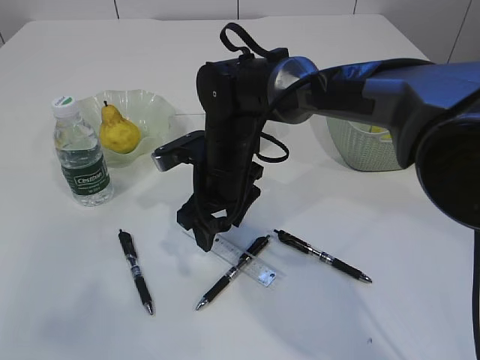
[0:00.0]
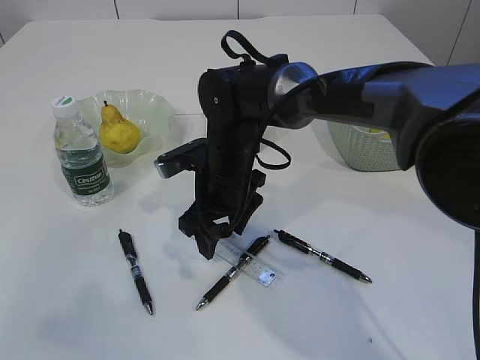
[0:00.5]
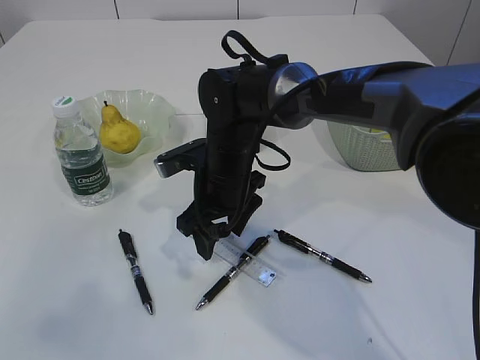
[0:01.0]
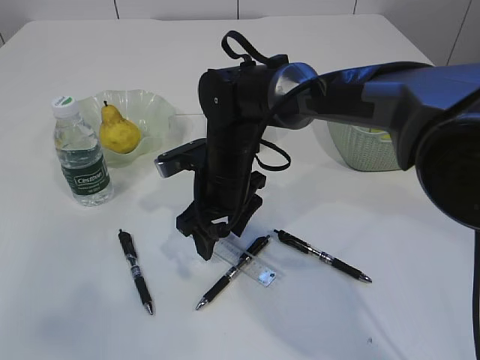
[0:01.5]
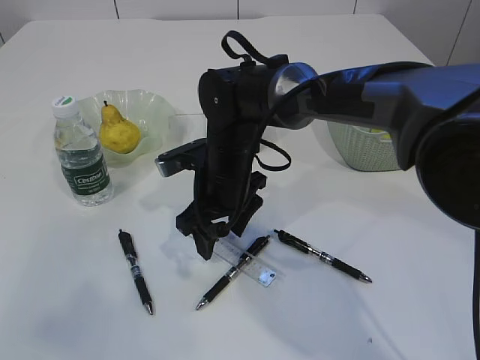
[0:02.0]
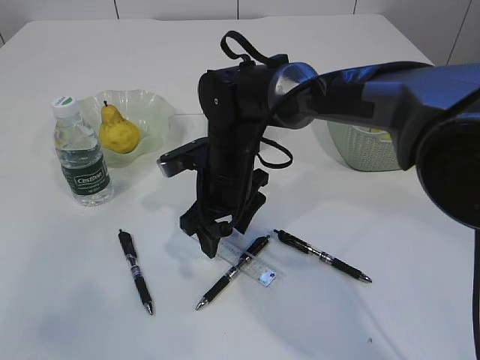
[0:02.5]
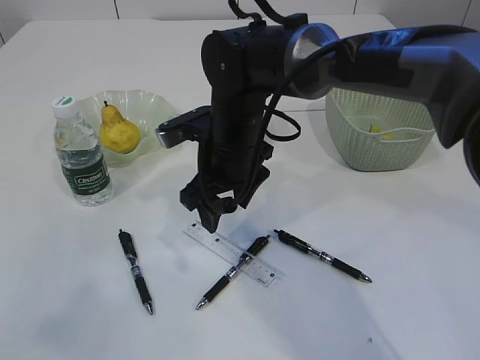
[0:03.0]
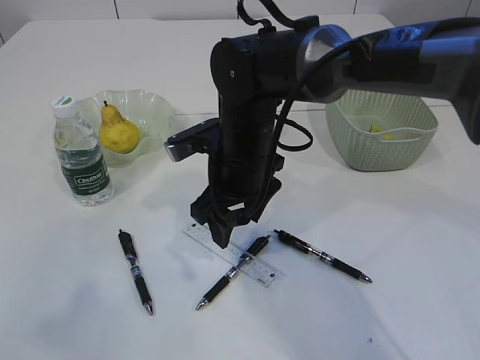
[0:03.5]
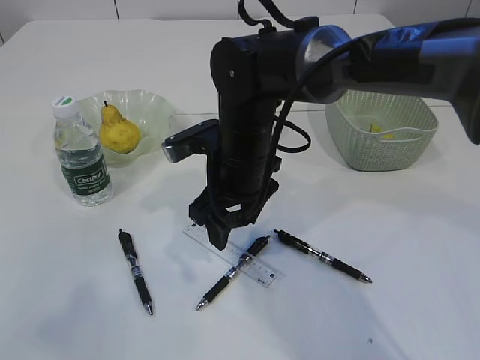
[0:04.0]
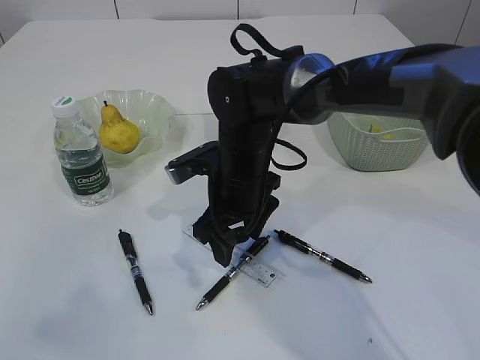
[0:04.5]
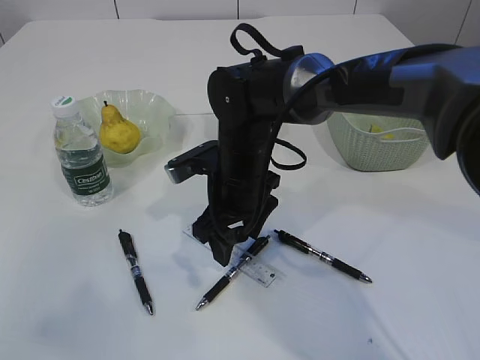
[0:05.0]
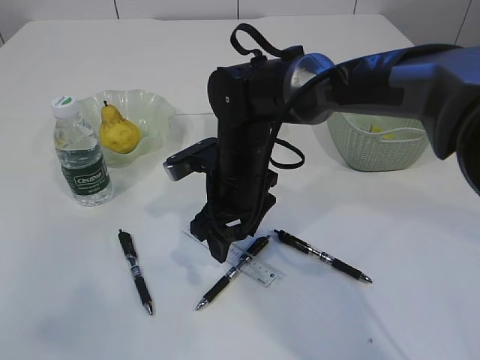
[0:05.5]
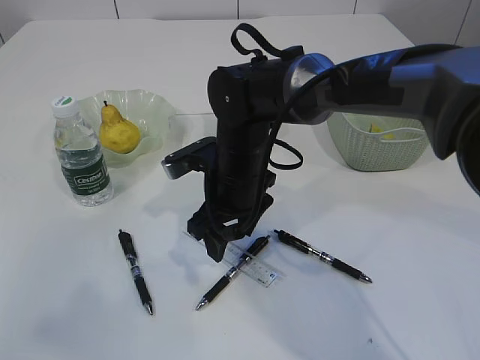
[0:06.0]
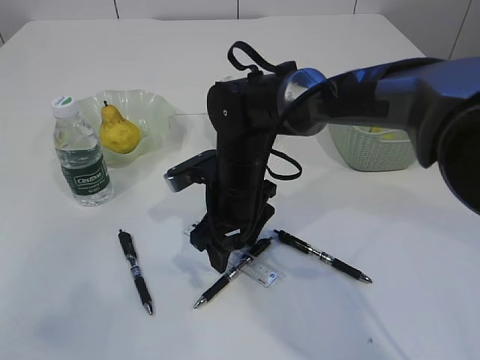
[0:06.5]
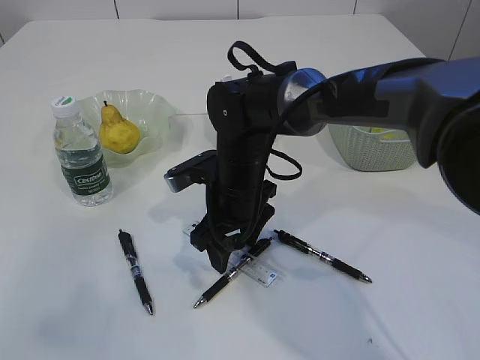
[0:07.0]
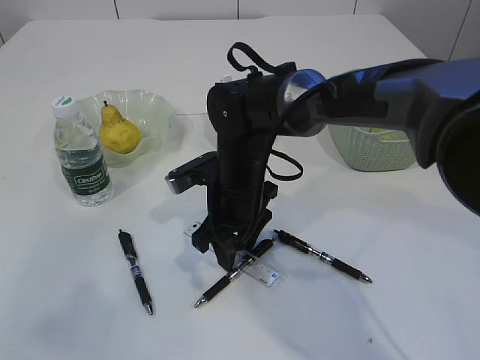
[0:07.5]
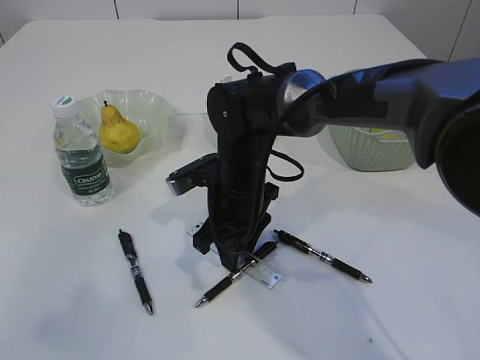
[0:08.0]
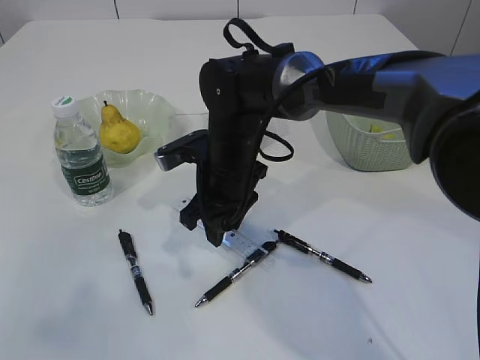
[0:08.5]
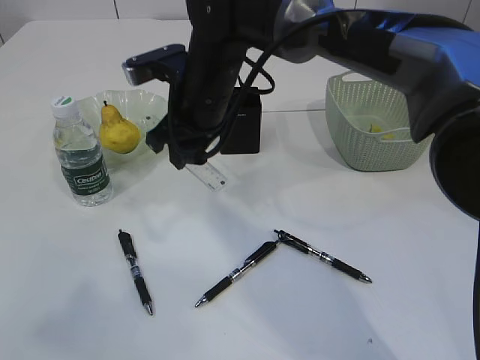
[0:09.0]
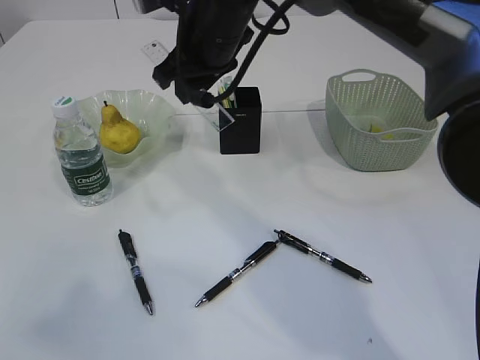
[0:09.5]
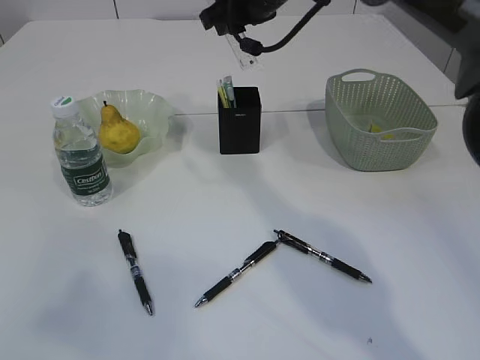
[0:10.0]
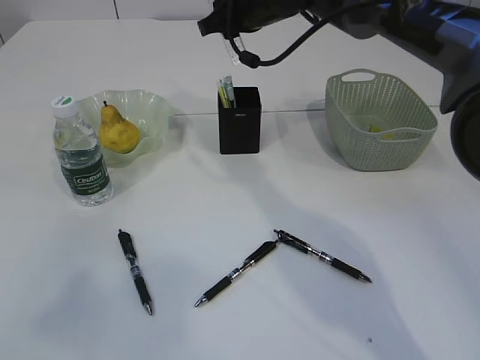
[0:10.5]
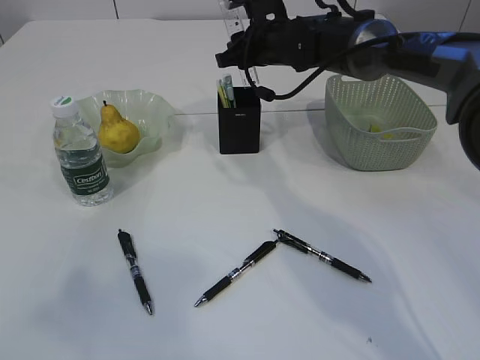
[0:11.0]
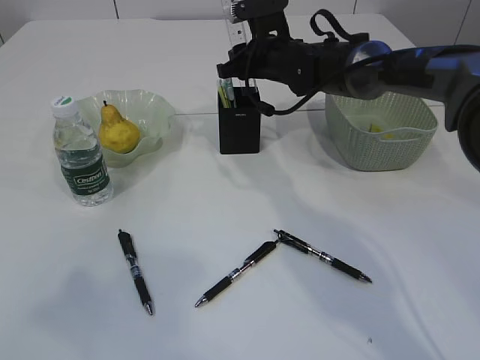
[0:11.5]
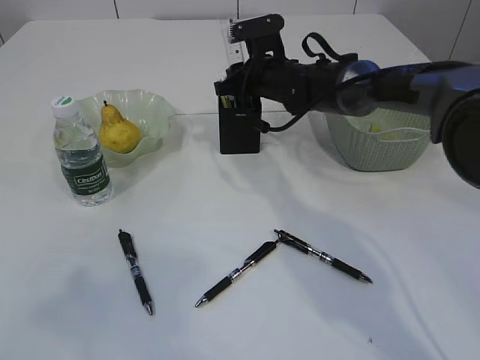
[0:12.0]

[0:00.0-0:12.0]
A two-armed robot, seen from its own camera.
Step, 0:00.0 to 0:08.5: pick up the ruler.
0:00.0 to 0:02.0: Both grippers stay about where they are.
0:04.0 to 0:06.0: The grippers stay close to where they were, moving slightly.
0:06.0 to 0:08.0: The right gripper closes up.
0:08.0 to 0:10.0: The right gripper travels upward and forward by approximately 20 cm.
0:10.0 to 0:12.0: The right gripper moves downward, approximately 15 cm.

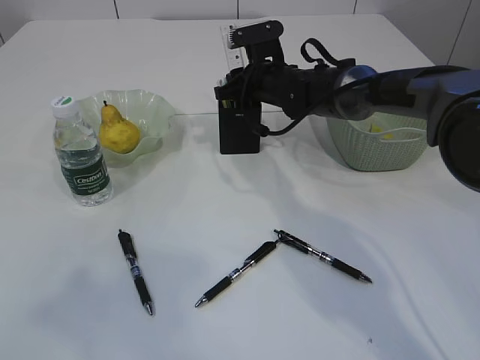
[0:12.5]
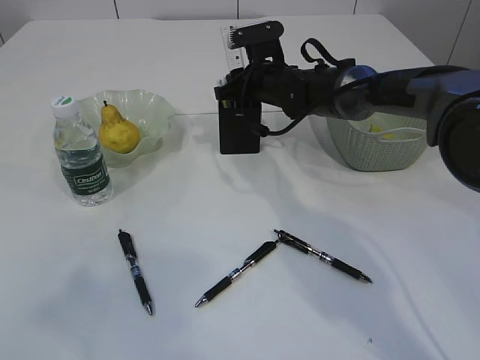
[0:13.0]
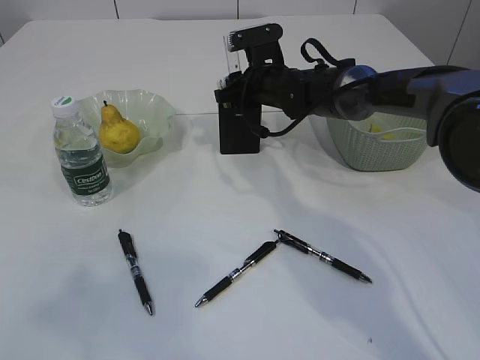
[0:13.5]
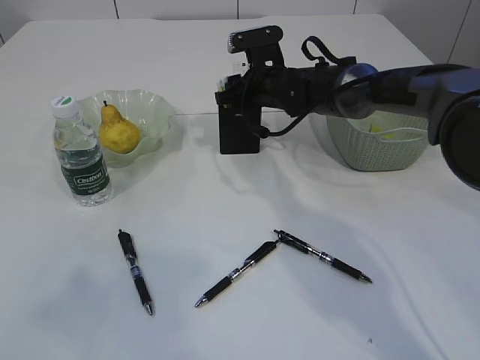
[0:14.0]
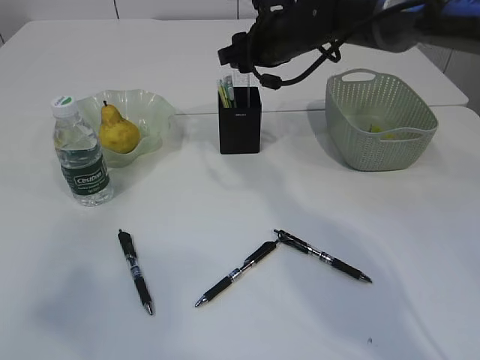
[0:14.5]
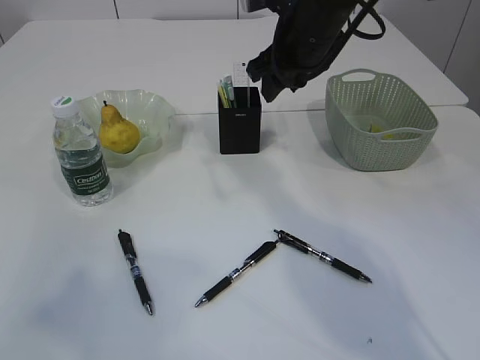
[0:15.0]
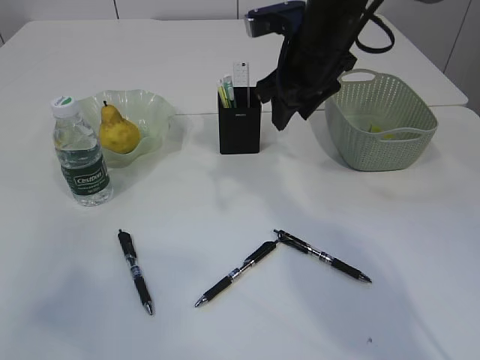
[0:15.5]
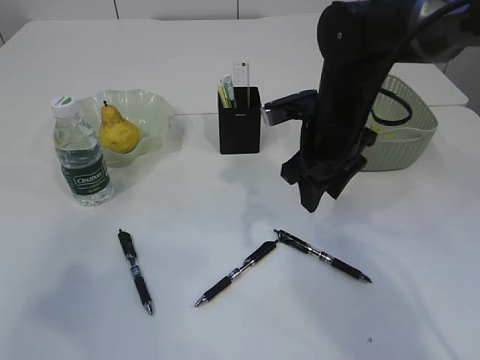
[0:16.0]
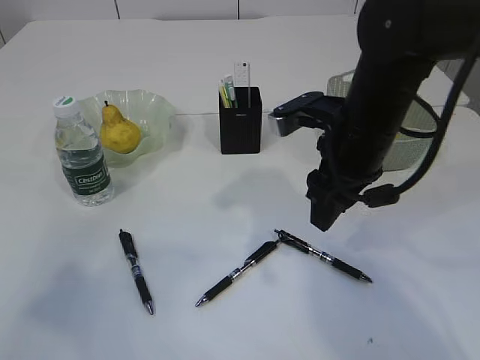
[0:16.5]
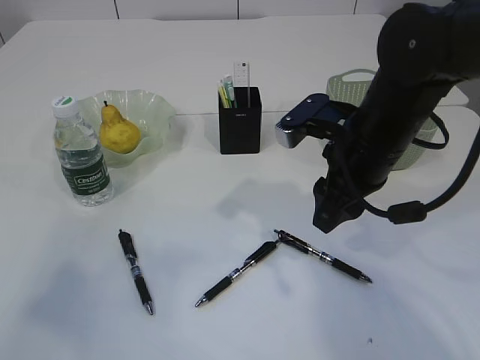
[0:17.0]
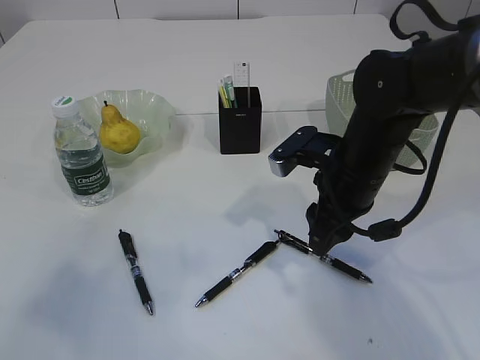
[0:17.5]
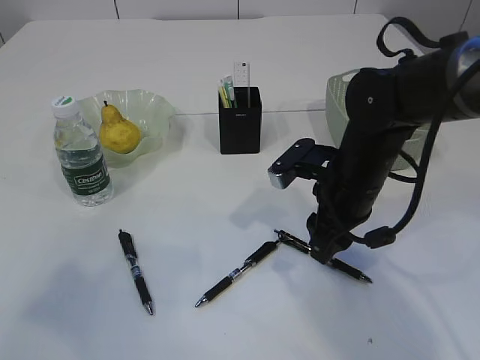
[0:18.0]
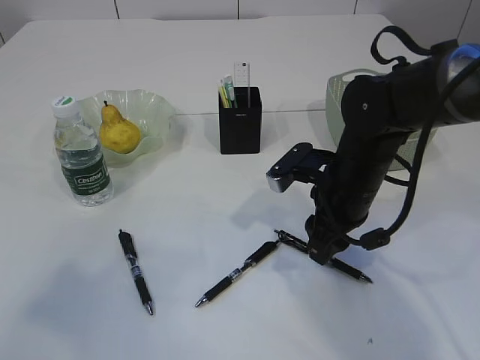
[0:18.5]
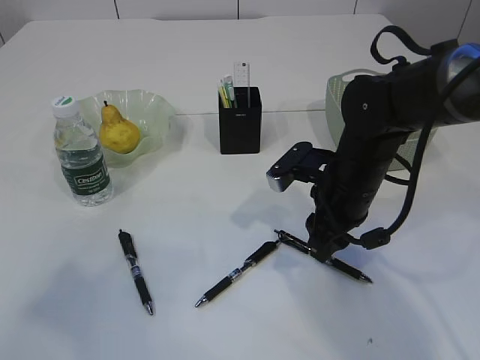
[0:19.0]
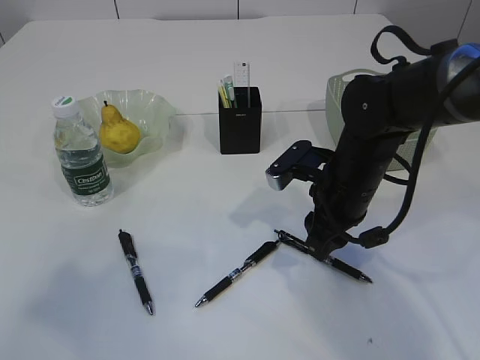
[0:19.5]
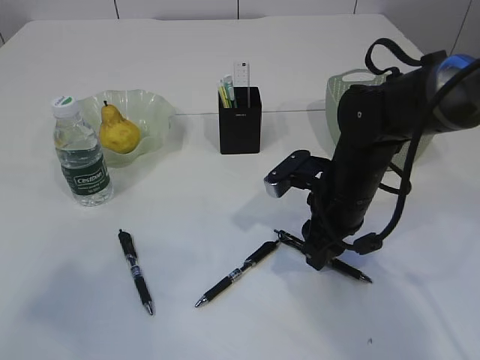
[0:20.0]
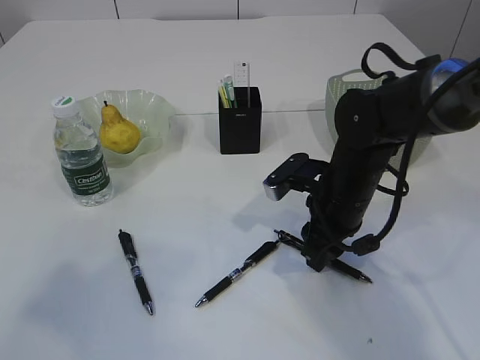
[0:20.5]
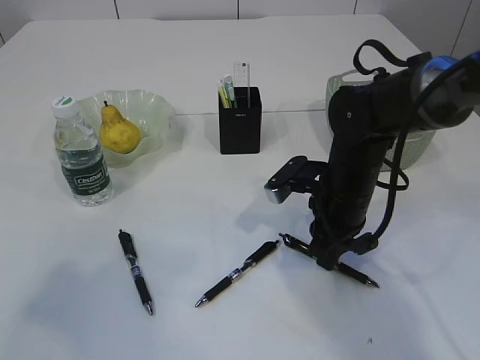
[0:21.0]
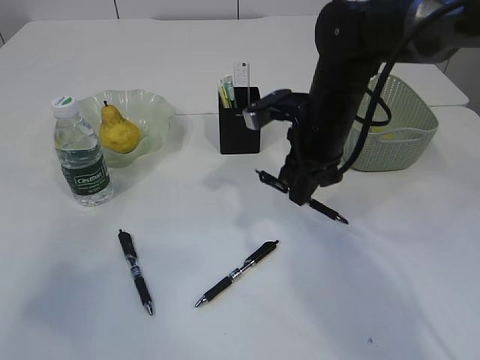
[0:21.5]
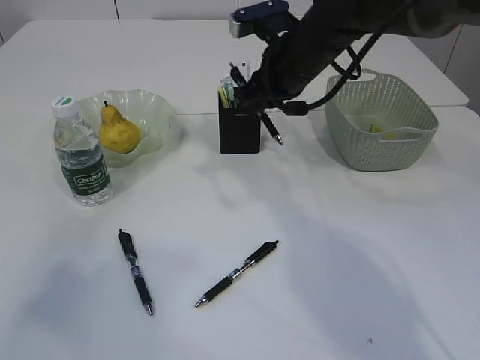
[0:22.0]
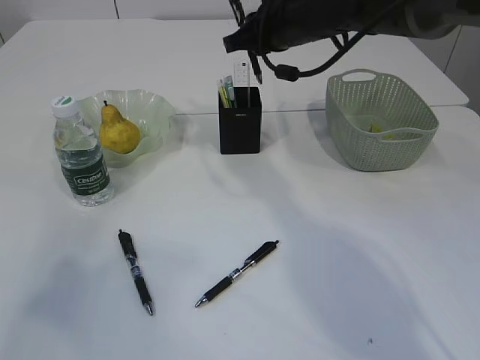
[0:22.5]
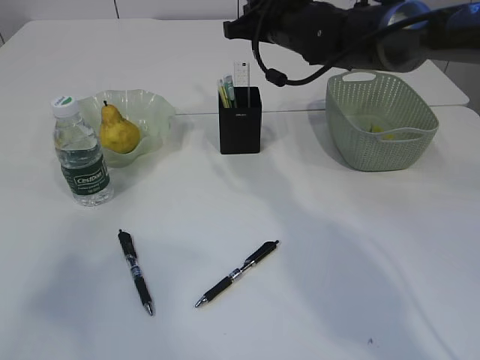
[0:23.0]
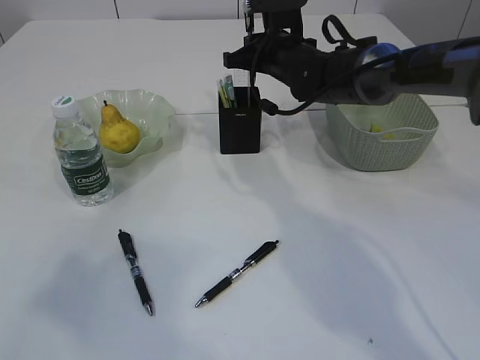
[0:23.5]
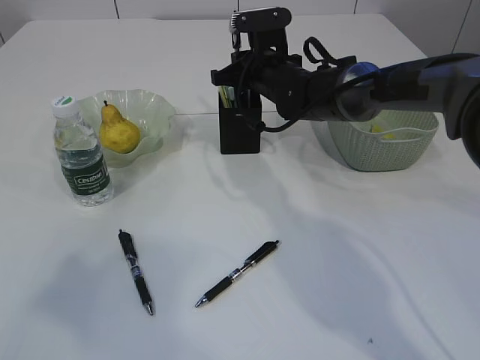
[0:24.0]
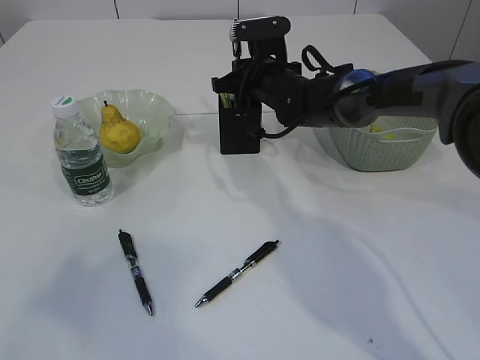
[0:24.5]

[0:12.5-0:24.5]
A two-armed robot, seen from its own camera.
Step, 0:12.5 to 0:15.0: Place the ruler into the pen holder.
Step, 0:15.5 to 0:21.5: Pick up the pen with right arm.
0:12.5 to 0:14.5: The right gripper heads upward, covering about 10 cm.
0:14.5 to 0:16.5: The right gripper shifts about 15 cm backward.
0:16.5 to 0:18.5: The right gripper heads downward, covering roughly 10 cm.
0:18.5 to 0:20.5: The grippers stay close to where they were, moving slightly.
0:20.5 to 0:22.5: The right gripper goes about 20 cm upward and forward, and closes its fingers.
0:22.5 to 0:24.5: The right gripper travels downward by about 10 cm.

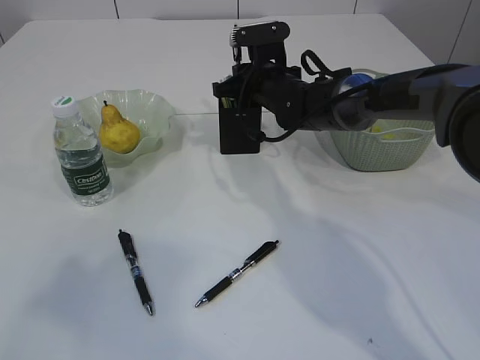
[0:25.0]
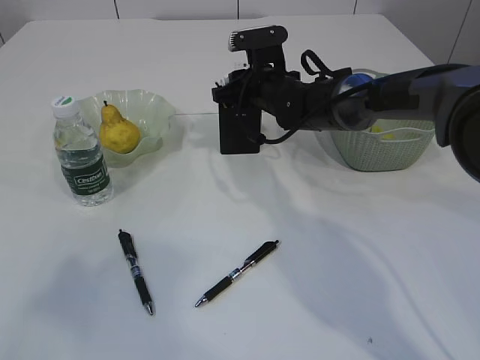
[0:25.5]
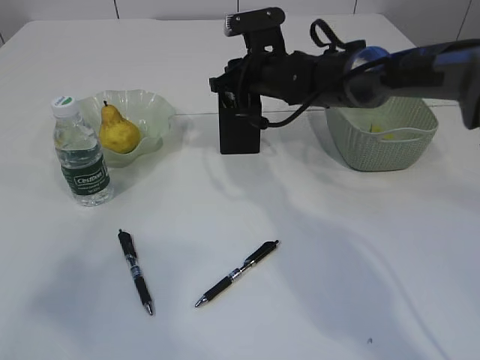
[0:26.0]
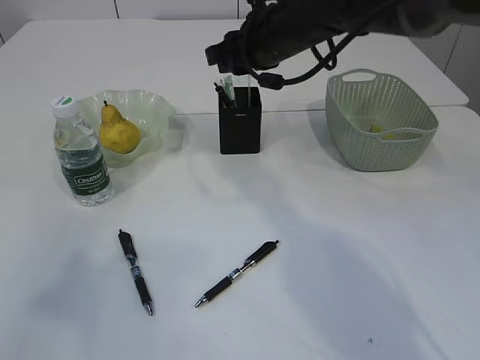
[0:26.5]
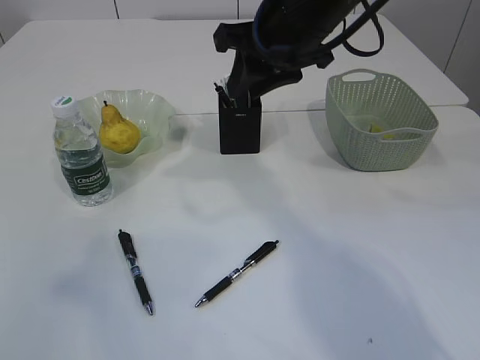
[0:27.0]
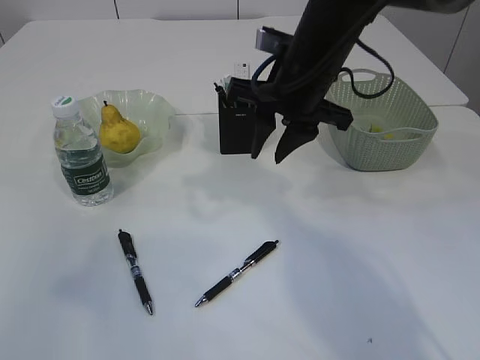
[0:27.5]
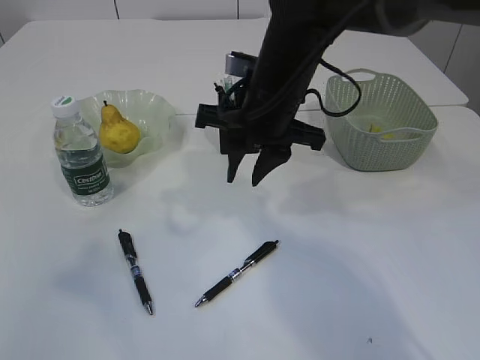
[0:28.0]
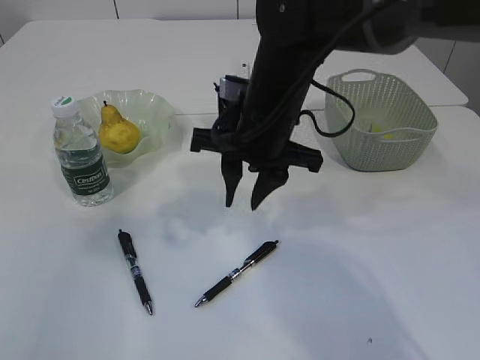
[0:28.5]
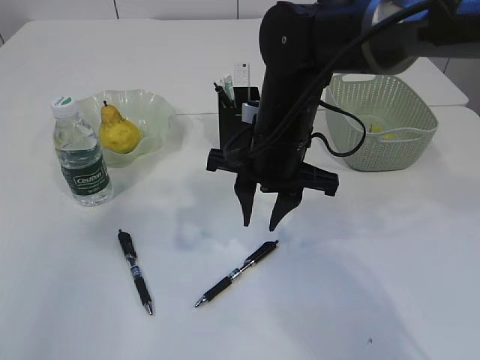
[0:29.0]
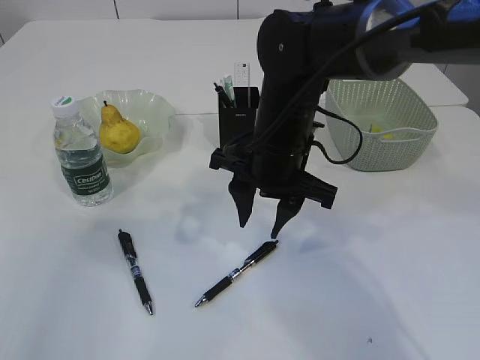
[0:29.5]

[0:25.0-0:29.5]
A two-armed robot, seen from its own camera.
0:25.0 to 0:27.0: The right gripper travels upward and backward by approximately 20 cm, and opens its fingers.
0:27.0 to 0:29.5: The right gripper heads downward, covering approximately 10 cm. The left gripper heads forward, covering roughly 5 cm.
